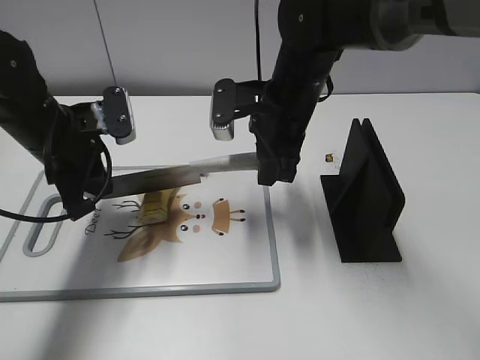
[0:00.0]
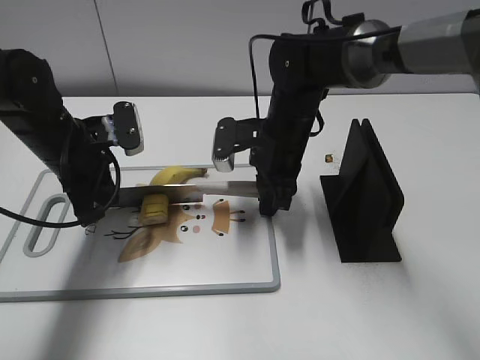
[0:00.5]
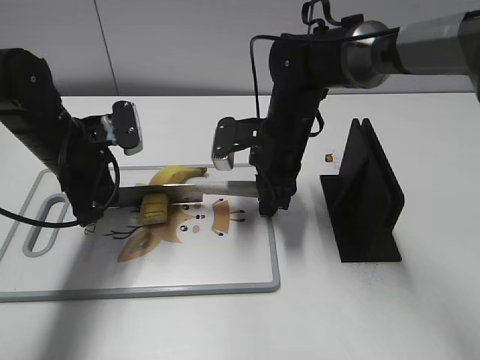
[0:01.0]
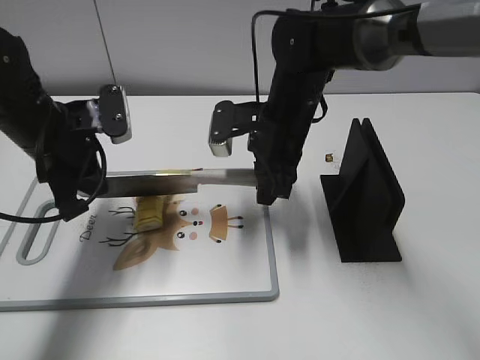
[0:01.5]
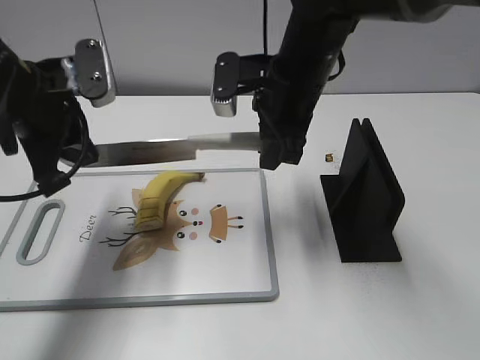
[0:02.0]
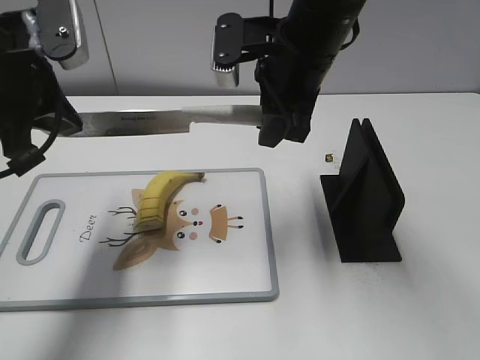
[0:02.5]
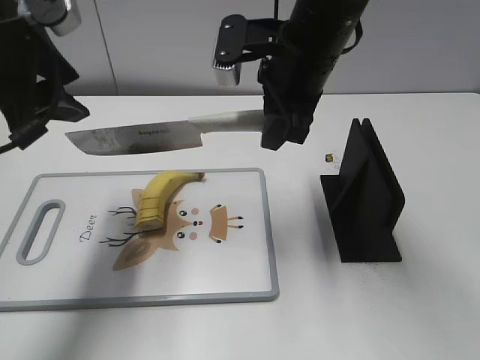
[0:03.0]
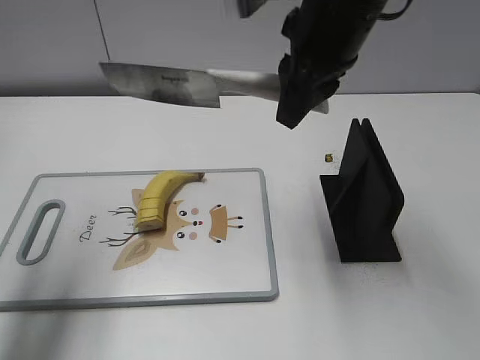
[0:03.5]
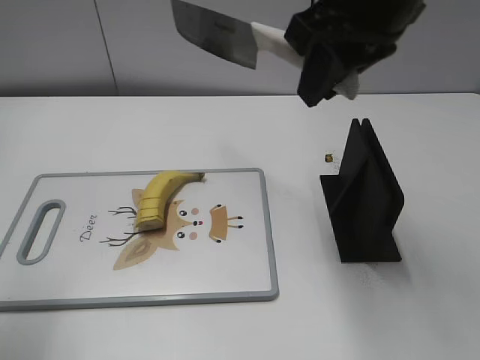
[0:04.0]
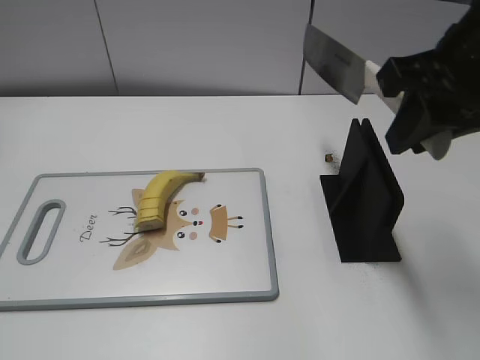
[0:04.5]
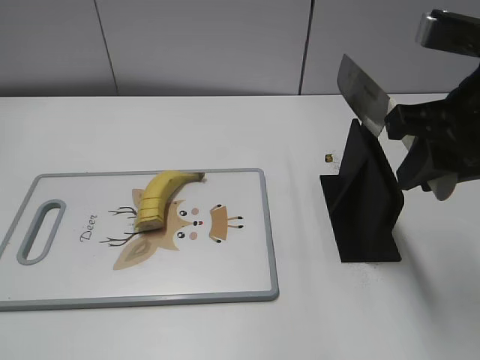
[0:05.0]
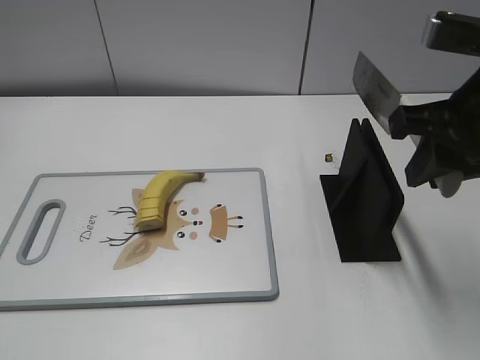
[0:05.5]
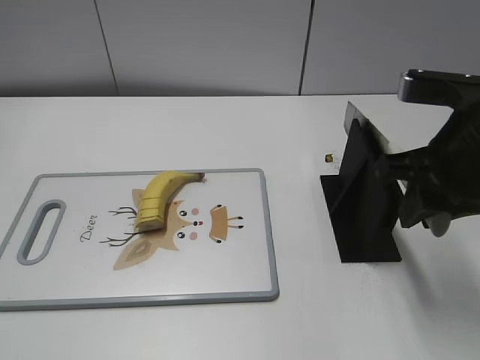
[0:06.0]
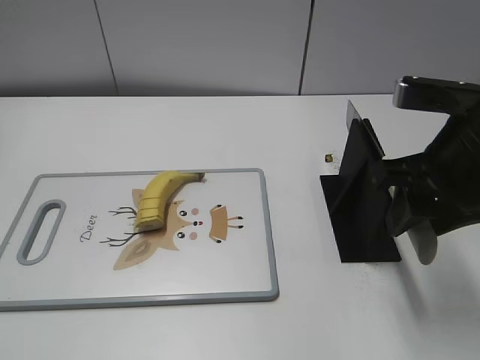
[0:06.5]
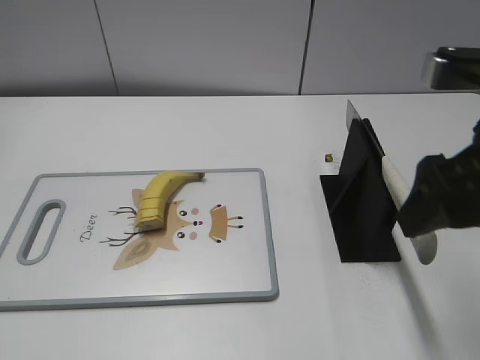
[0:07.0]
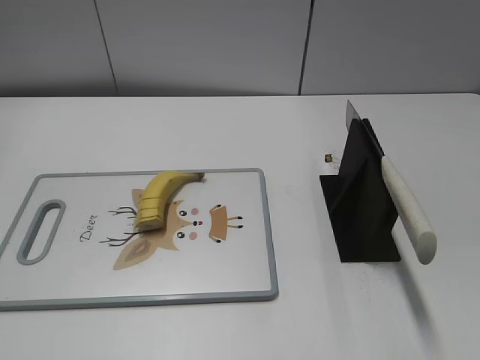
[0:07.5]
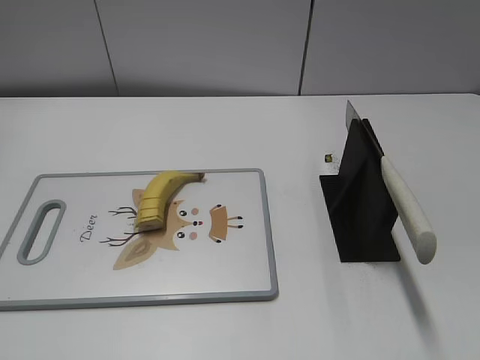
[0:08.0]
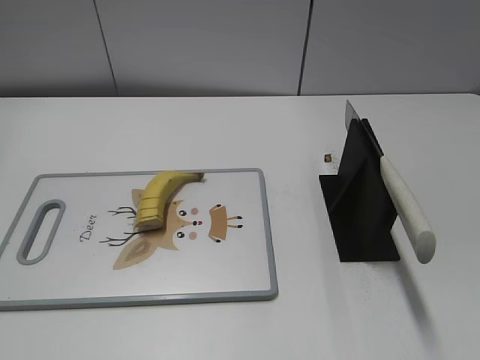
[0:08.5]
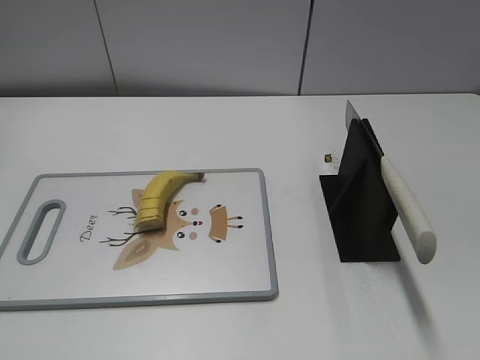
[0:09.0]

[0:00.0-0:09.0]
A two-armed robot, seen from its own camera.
Task of the whole recording: cut banana.
Step, 0:00.5 to 0:04.0: Cut the banana with your right hand.
Step, 0:04.5 to 0:05.5: Lift the knife with your right hand.
Step, 0:06.5 to 0:09.0: Place the knife on the storage rack with your right hand.
0:00.0 to 0:02.0: The left gripper shifts some 5 cm upward.
0:02.0 to 0:04.5: The left gripper travels backward by some 25 cm, and opens its fingers. The right gripper travels backward, upward and to the right by approximately 20 cm.
0:04.5 to 0:07.0: The right gripper moves approximately 5 cm, and opens.
0:07.0 to 0:09.0: The right gripper travels backward and to the right by roughly 25 cm.
